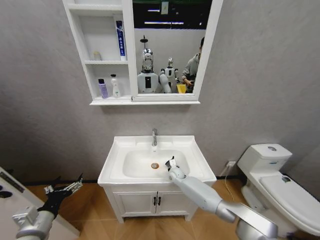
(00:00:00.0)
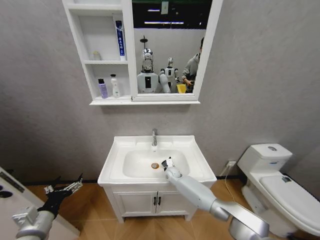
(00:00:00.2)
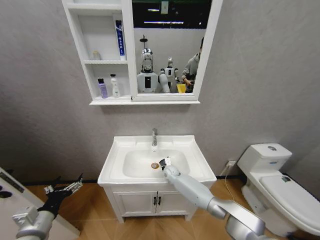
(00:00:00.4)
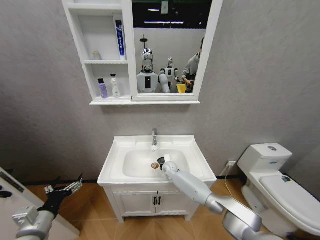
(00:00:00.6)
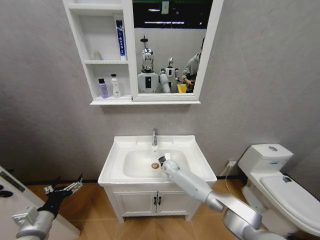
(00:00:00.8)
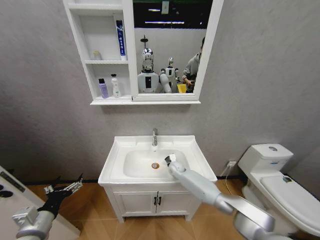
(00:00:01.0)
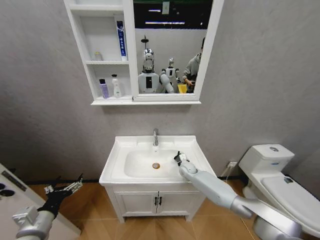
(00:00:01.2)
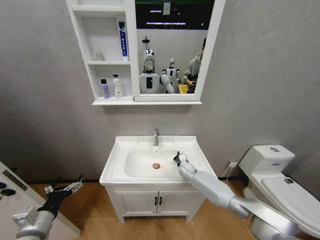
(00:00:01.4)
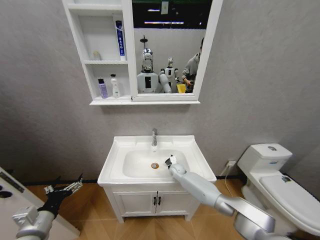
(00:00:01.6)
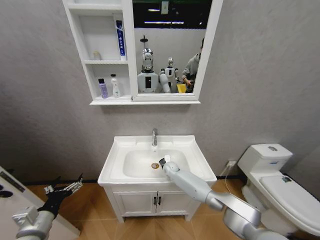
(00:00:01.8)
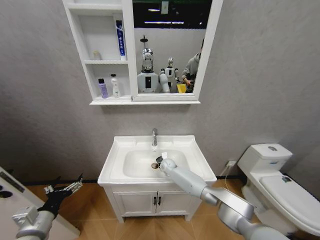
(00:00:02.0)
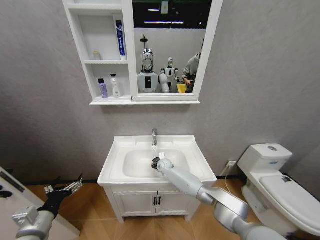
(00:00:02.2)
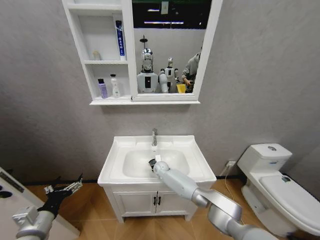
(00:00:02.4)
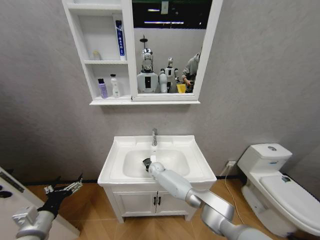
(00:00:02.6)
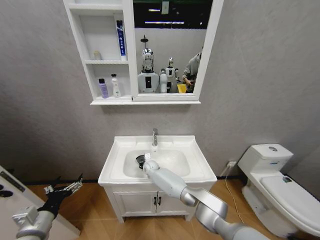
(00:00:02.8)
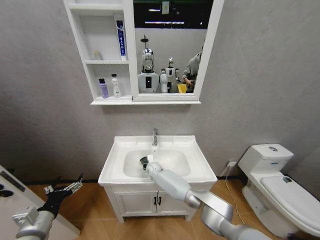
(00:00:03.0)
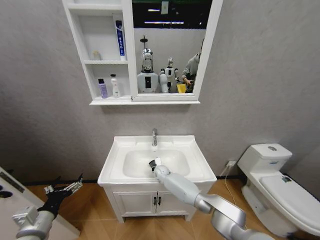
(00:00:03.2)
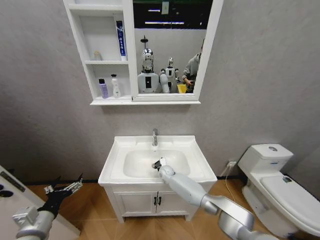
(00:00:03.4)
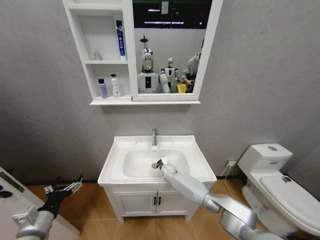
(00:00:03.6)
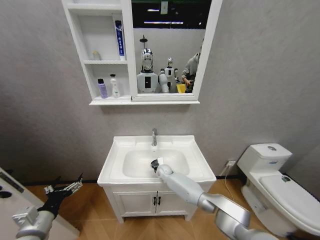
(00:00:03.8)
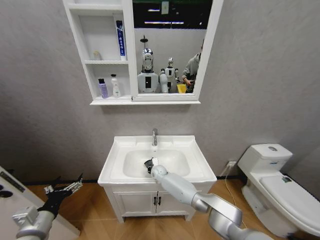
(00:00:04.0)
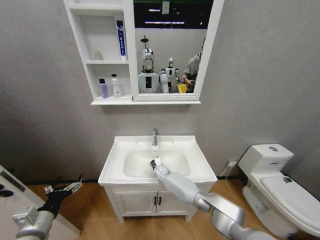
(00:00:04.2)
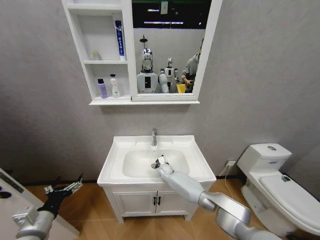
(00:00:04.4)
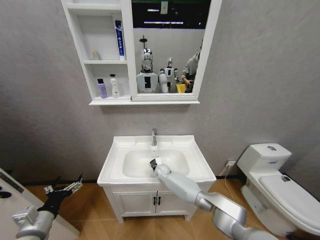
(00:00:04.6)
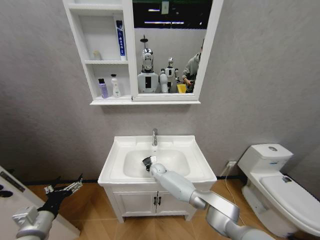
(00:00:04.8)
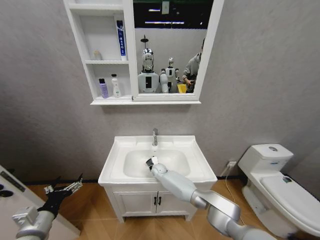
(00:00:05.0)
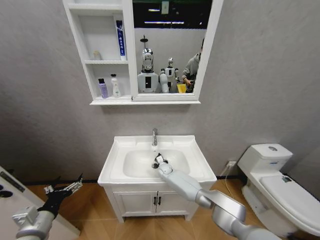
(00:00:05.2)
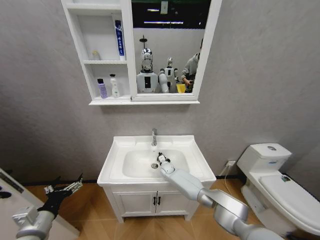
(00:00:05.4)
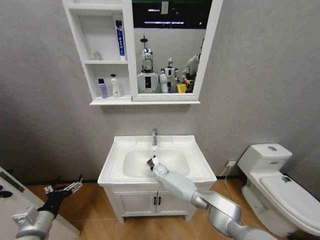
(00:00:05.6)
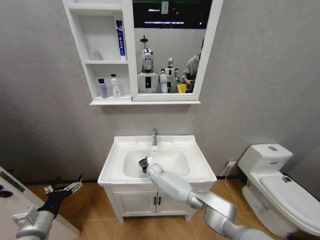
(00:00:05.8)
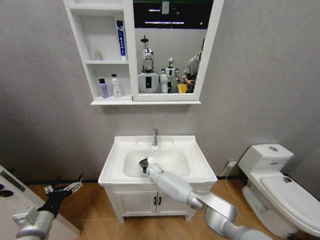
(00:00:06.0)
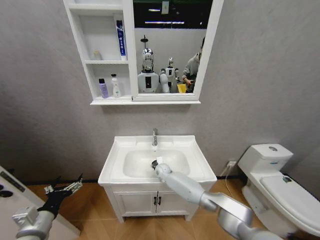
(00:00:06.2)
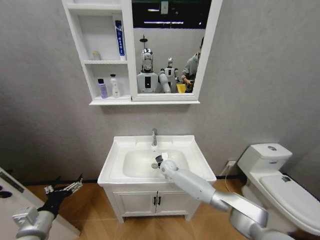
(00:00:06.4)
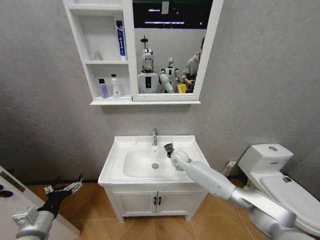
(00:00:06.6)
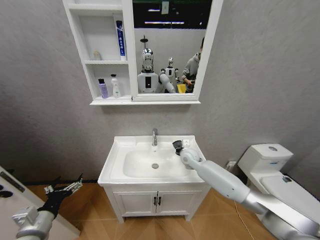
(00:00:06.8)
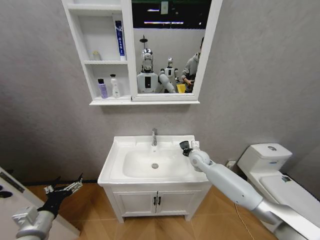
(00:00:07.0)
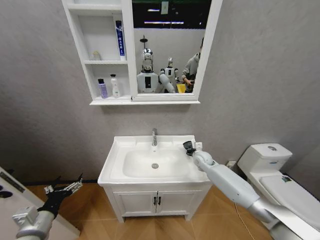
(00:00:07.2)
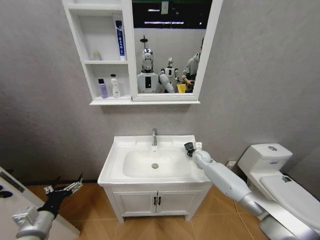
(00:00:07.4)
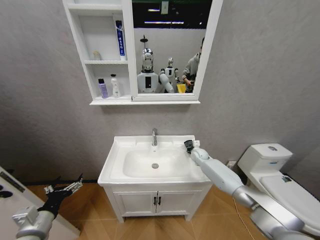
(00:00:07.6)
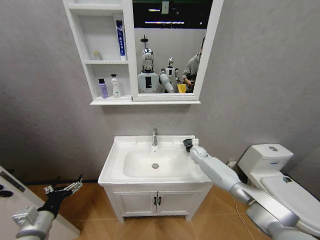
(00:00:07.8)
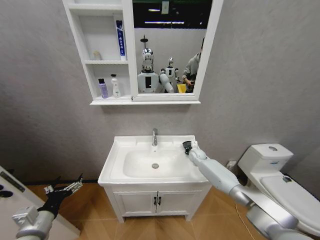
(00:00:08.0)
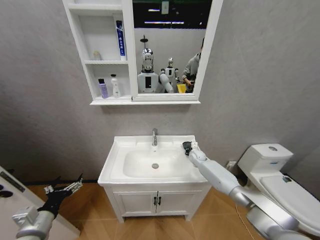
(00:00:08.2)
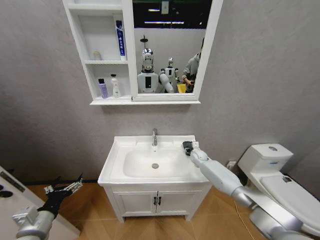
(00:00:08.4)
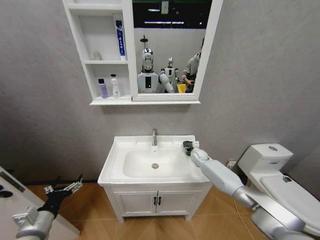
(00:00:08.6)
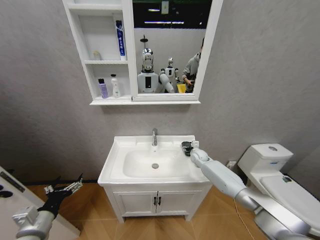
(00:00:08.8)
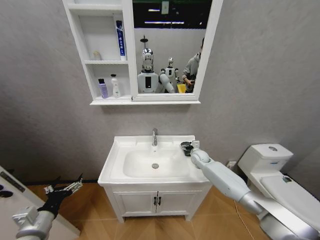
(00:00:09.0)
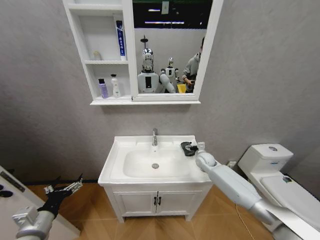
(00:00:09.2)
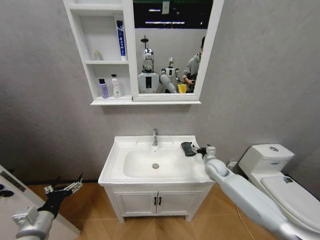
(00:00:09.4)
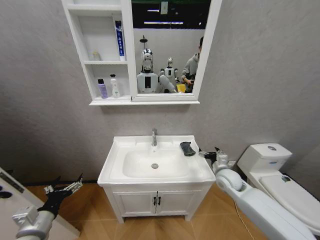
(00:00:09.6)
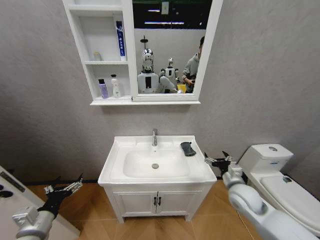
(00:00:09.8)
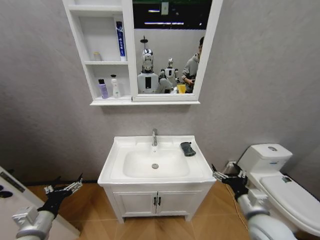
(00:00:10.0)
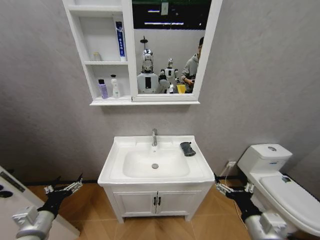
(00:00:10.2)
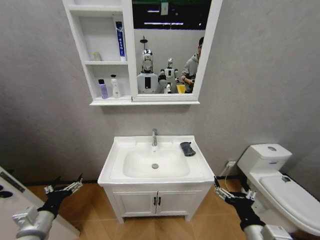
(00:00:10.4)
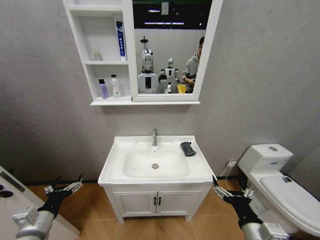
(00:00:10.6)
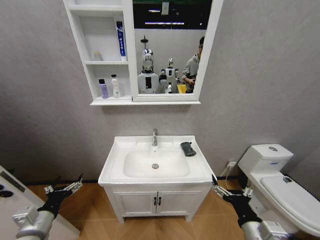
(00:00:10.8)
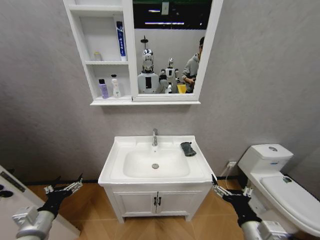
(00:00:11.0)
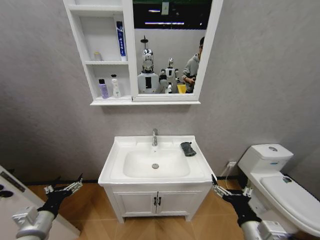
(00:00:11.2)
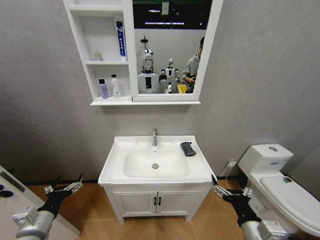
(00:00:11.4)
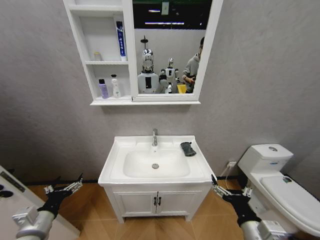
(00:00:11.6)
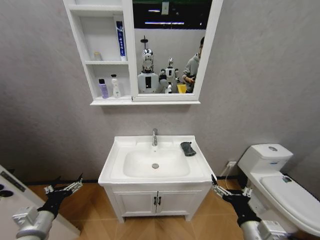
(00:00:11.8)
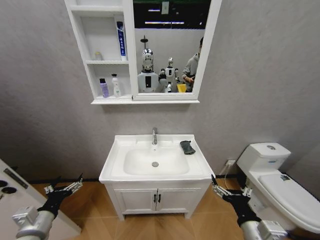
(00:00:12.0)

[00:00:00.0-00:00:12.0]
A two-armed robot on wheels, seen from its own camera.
Task of the whole recording: Move facial cleanser and shampoo from washbasin to cabinet, then wipe washbasin with towel.
00:00:00.0 to 00:00:01.6: The right gripper moves left and right over about 10 cm, changing direction 2 times.
00:00:01.6 to 00:00:03.0: The right gripper moves to the left, about 15 cm.
00:00:03.0 to 00:00:04.4: The right gripper swings left and right, roughly 10 cm each way, with 2 reversals.
00:00:04.4 to 00:00:06.0: The right gripper moves left and right over some 10 cm, changing direction 2 times.
00:00:06.0 to 00:00:07.6: The right gripper travels to the right by some 30 cm.
00:00:07.6 to 00:00:09.0: The right gripper opens its fingers.
00:00:09.0 to 00:00:10.4: The right gripper is displaced backward by about 40 cm.
00:00:10.4 to 00:00:12.0: Neither gripper changes place.
